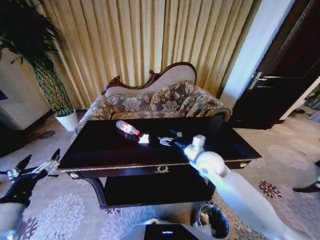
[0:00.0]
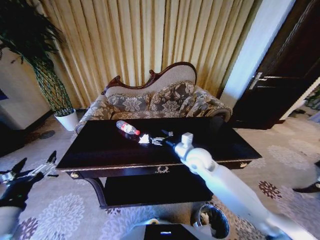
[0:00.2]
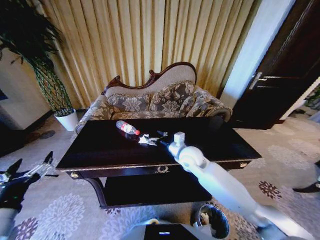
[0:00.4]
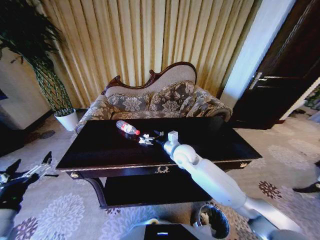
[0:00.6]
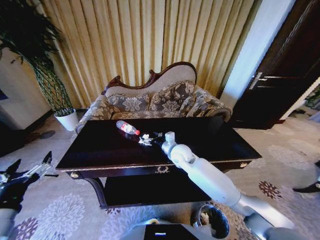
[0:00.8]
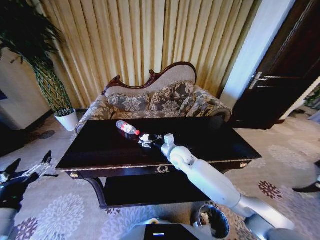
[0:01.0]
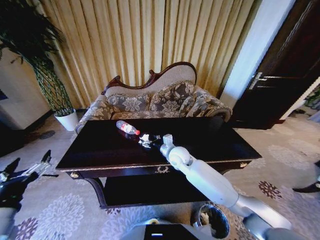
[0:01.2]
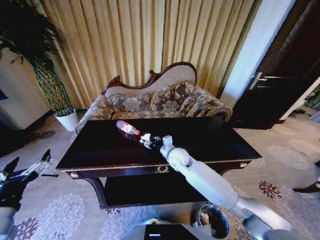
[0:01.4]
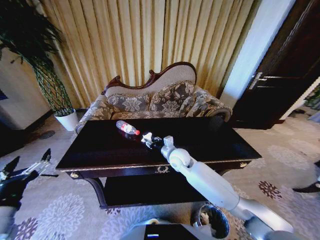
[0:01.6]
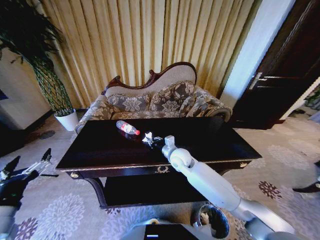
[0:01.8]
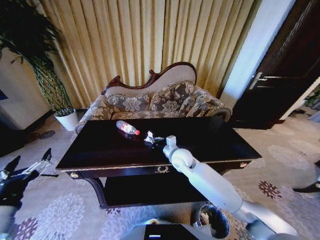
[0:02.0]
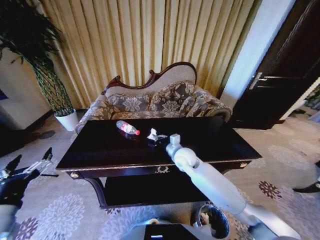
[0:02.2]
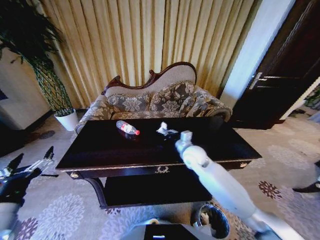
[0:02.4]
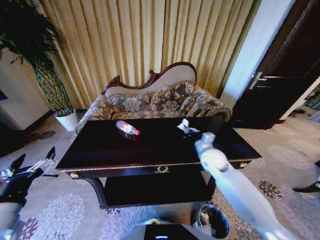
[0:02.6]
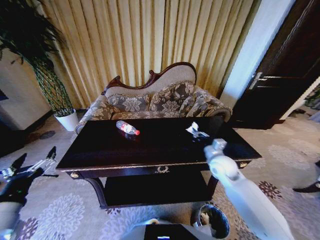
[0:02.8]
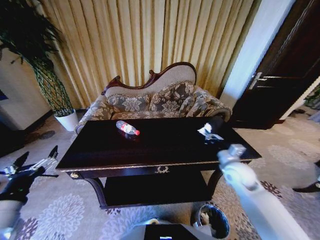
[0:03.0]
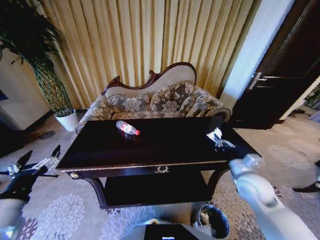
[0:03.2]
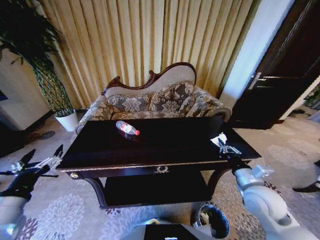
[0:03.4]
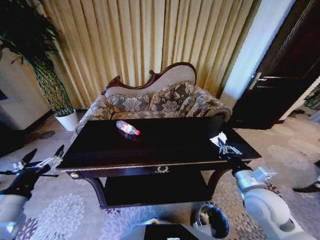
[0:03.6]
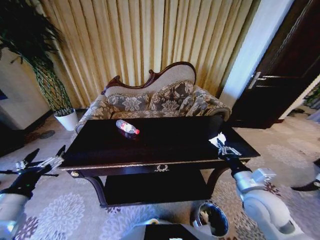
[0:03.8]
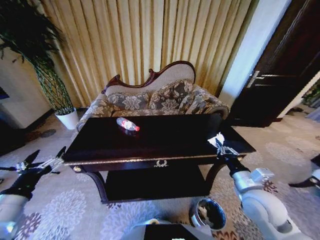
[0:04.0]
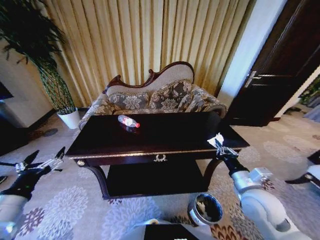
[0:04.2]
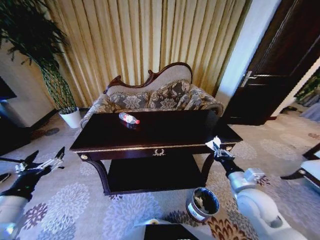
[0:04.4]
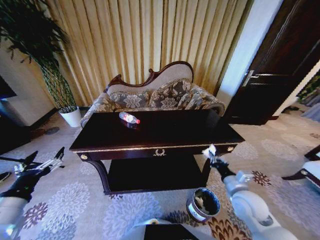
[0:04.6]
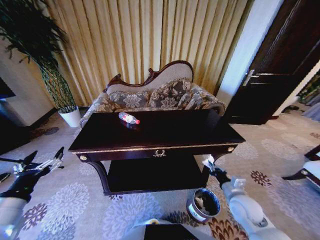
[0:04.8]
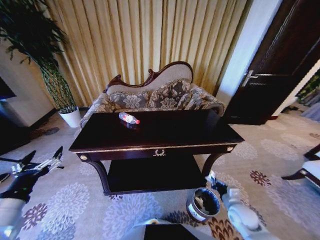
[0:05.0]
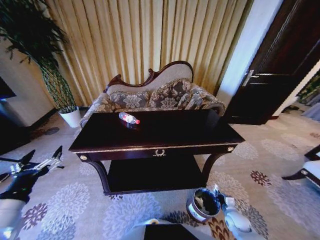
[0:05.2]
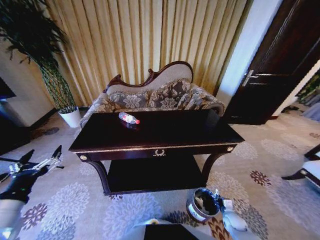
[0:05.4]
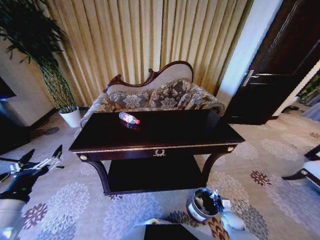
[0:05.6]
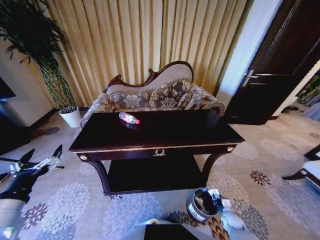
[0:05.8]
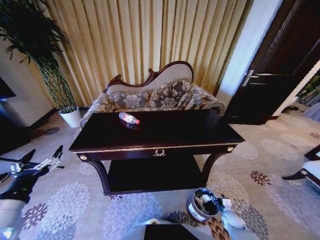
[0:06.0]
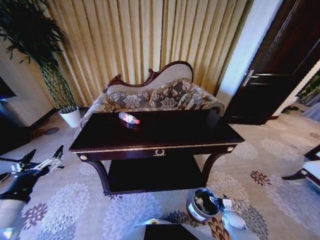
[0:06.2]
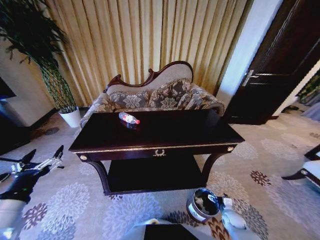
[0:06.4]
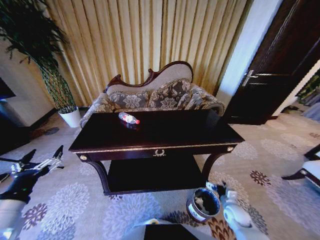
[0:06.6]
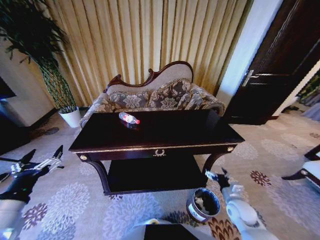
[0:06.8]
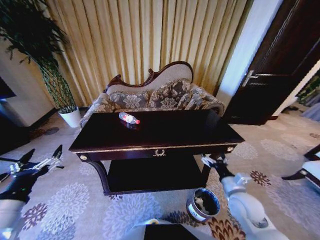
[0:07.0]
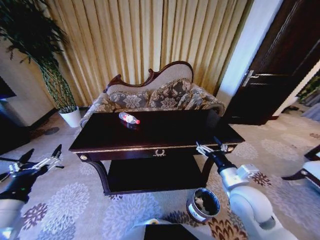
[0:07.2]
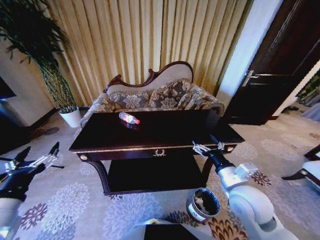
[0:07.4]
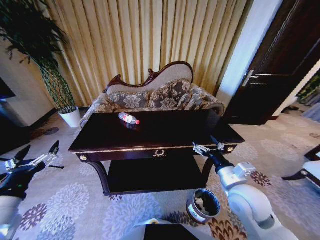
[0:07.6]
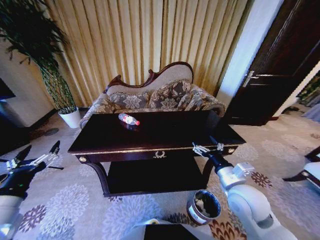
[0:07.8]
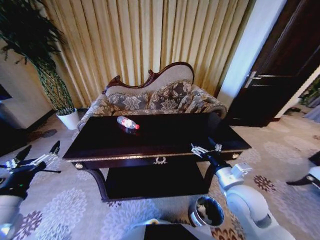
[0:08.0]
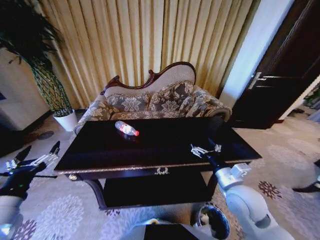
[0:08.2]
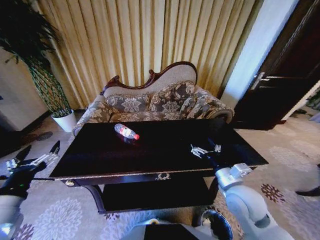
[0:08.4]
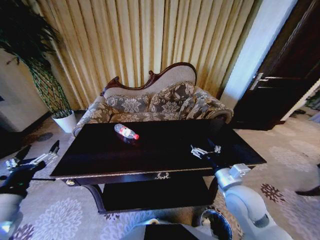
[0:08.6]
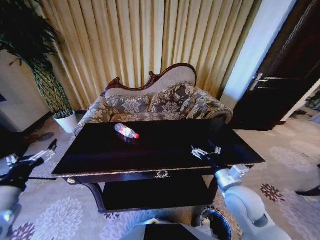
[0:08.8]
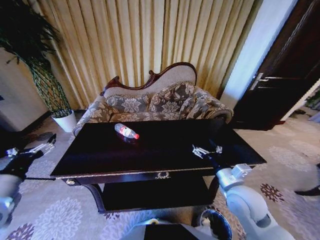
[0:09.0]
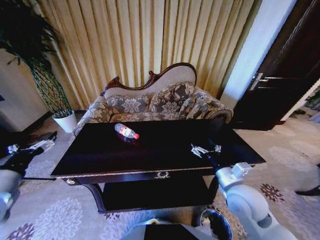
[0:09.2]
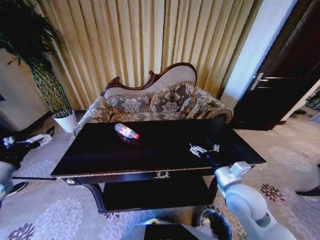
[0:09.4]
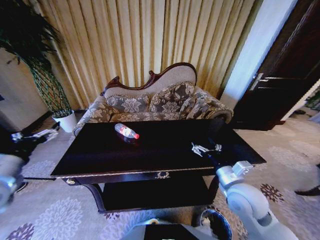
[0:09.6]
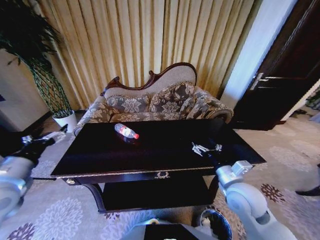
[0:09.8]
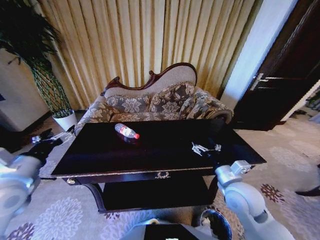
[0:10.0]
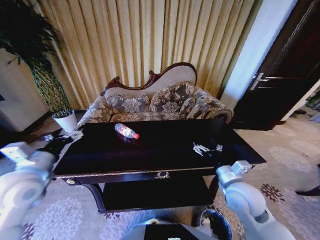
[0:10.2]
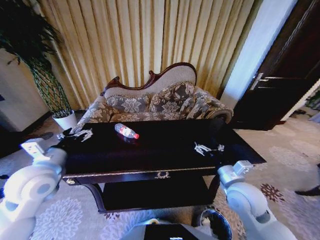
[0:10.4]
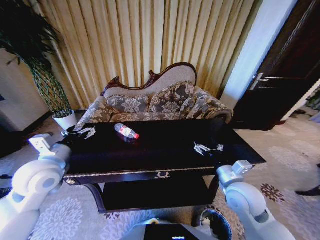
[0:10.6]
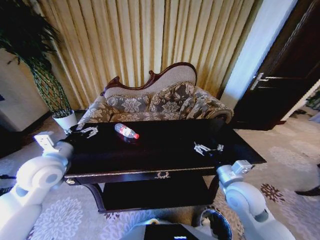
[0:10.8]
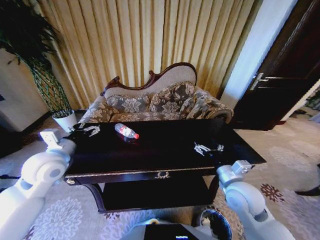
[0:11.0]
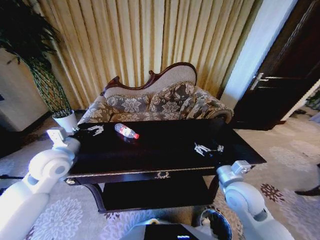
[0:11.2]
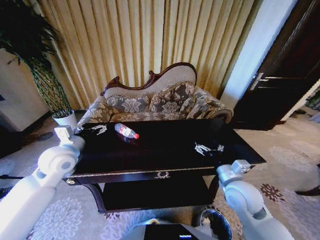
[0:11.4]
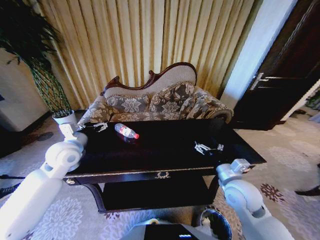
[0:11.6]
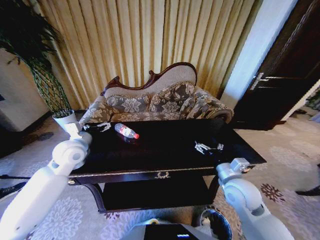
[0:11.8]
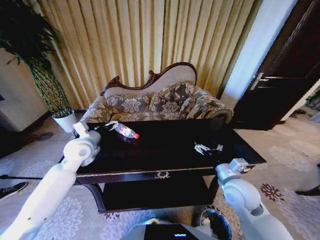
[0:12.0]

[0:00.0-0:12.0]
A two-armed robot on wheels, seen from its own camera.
Task of the whole recording: Move to the front of the table and place the trash on the table into the trash bin.
0:00.0 to 0:01.6: The right gripper travels to the left, forward and downward by some 15 cm, and closes.
0:01.6 to 0:03.0: The right gripper travels to the right and backward by some 25 cm, and closes its fingers.
0:03.0 to 0:04.4: The right gripper travels backward by about 10 cm.
0:04.4 to 0:06.0: The right gripper is displaced downward by approximately 35 cm, and opens up.
0:06.0 to 0:07.6: The right gripper moves upward, about 35 cm, and opens up.
0:07.6 to 0:09.0: The left gripper is displaced forward by some 5 cm.
0:09.0 to 0:10.4: The left gripper travels to the right and forward by some 15 cm.
0:10.4 to 0:12.0: The left gripper moves forward, about 15 cm.

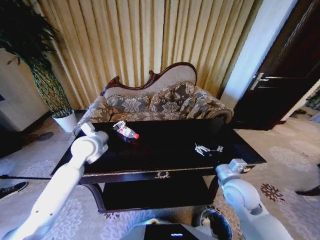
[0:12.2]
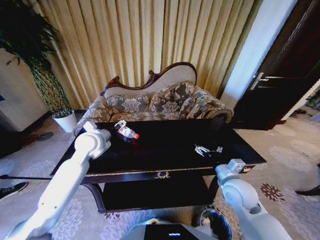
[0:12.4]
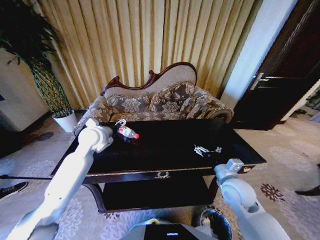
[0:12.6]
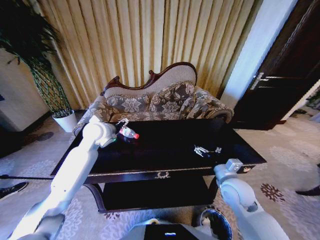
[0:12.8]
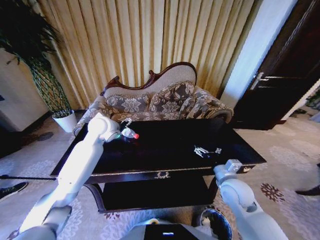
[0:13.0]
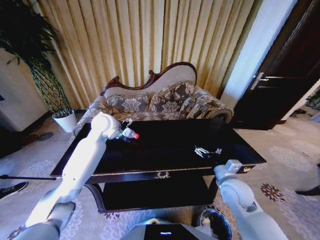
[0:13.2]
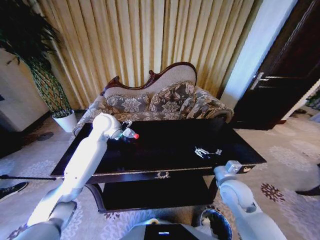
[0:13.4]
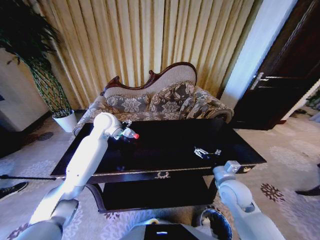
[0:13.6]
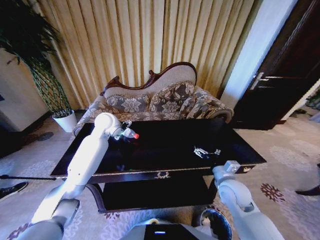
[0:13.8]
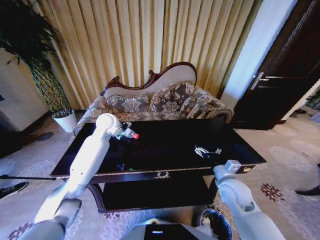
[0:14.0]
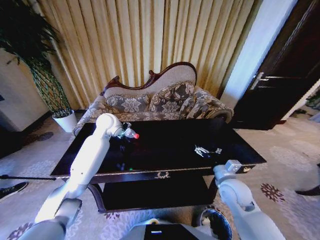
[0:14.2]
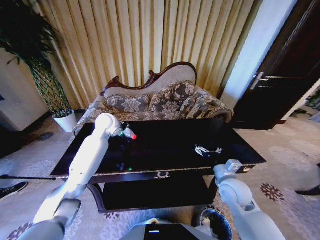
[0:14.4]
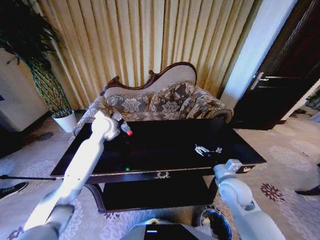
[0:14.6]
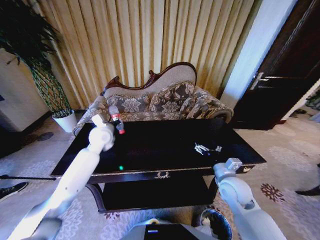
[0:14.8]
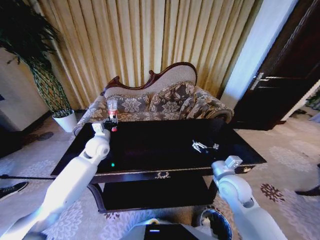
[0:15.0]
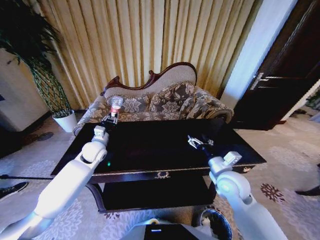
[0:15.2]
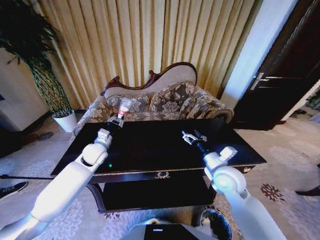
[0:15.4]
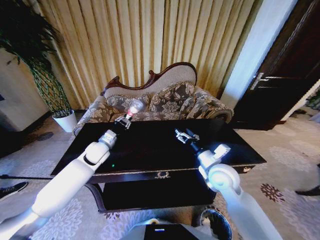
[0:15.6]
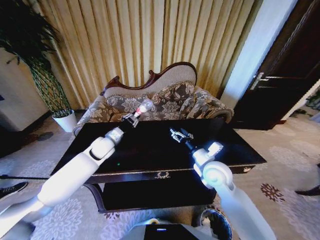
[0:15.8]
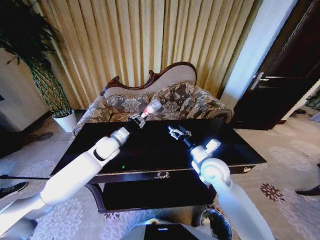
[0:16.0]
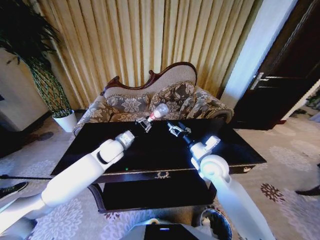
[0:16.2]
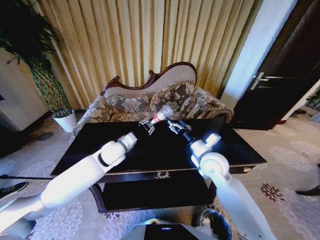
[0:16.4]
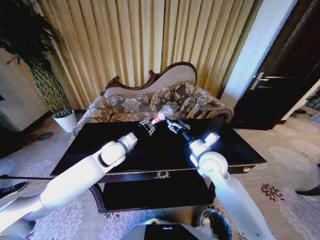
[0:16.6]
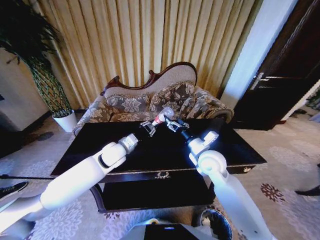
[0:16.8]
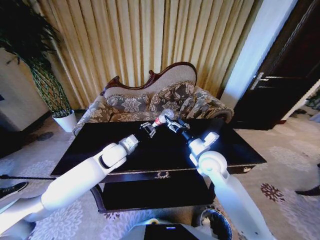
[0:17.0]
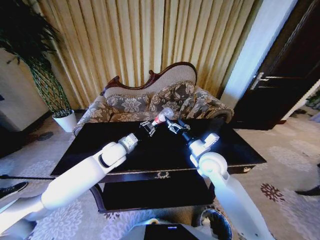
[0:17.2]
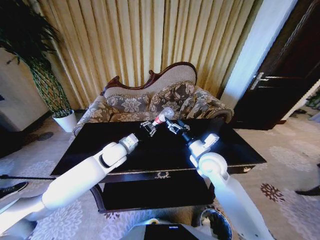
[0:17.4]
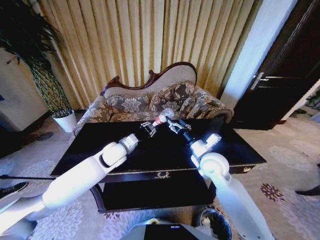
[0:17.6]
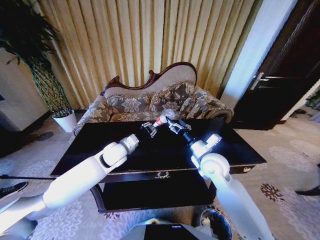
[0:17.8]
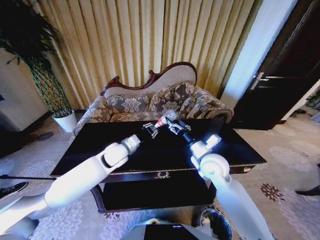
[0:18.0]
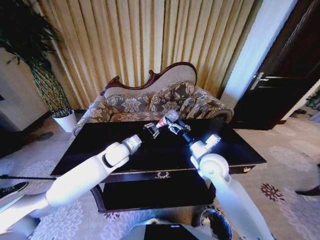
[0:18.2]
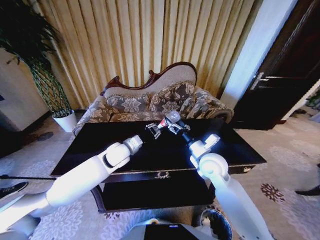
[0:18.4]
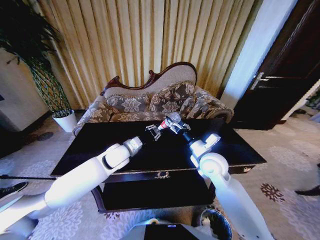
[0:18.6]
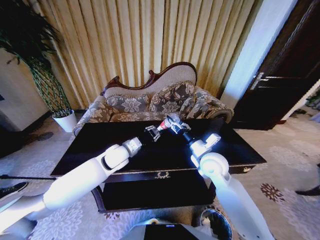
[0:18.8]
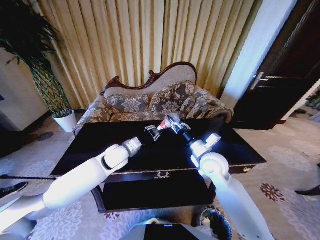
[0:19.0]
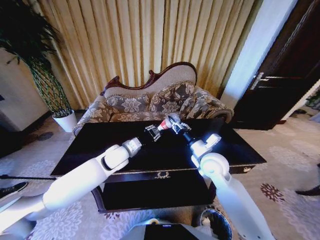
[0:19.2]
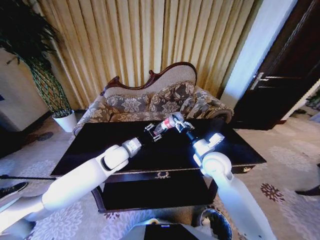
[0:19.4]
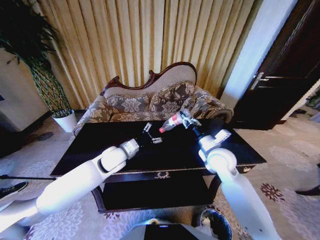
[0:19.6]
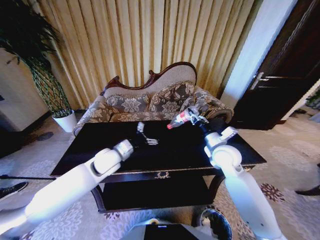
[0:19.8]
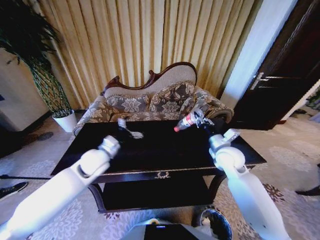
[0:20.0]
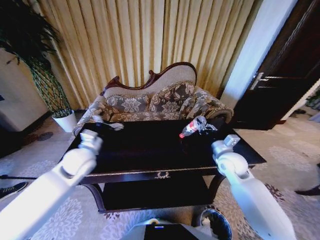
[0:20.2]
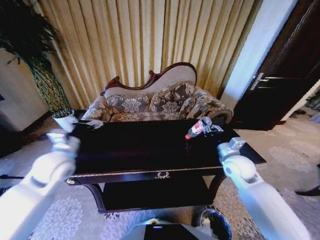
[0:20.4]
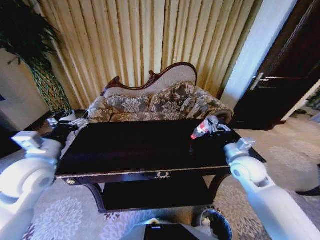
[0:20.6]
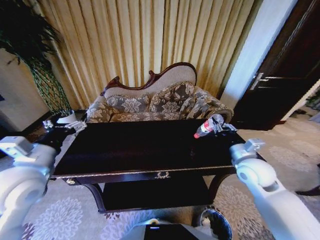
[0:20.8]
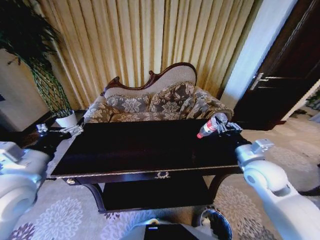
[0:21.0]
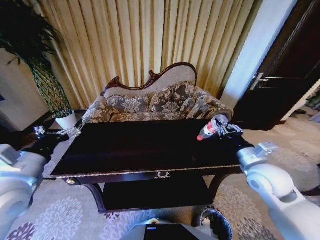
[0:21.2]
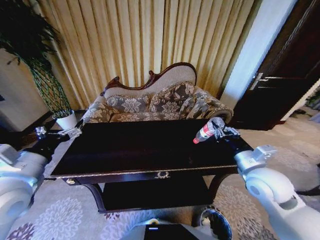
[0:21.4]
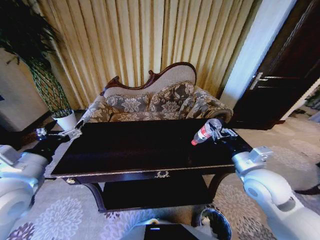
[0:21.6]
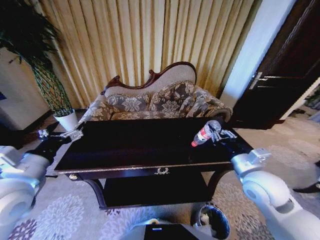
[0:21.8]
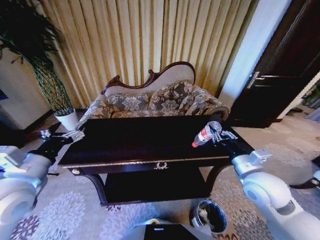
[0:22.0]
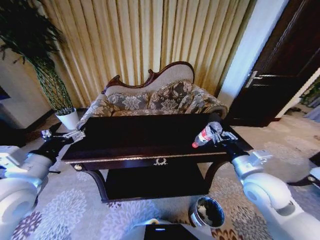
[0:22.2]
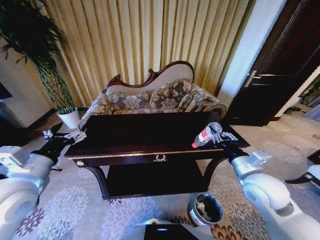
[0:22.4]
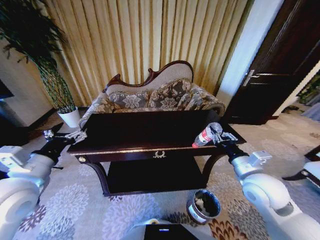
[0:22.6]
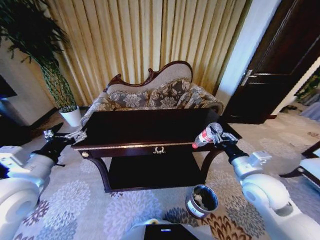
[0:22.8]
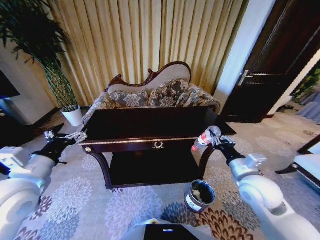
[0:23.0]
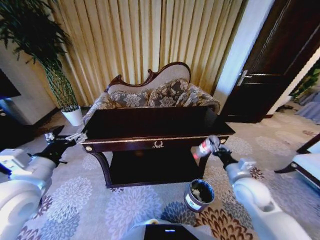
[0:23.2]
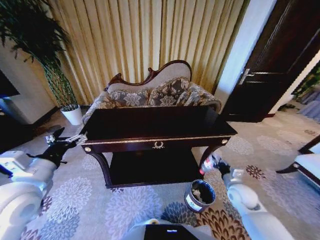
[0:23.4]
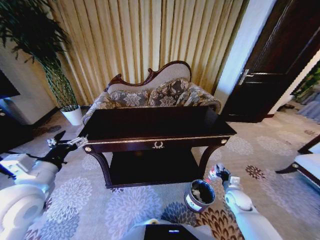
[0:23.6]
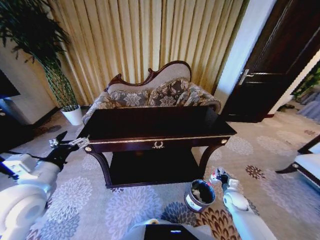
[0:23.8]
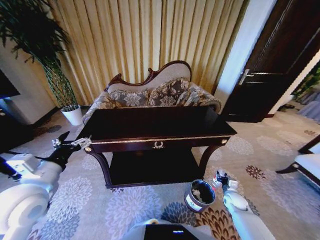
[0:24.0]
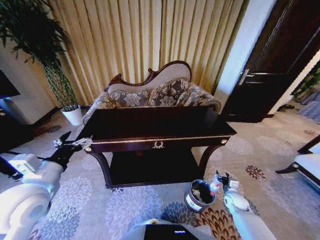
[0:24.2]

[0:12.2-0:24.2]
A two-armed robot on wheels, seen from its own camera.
Task of the whole recording: Move to the front of the table and place the trash on the table into the trash bin.
0:12.2 to 0:13.8: The left gripper moves forward and to the right, some 15 cm.
0:13.8 to 0:15.2: The right gripper shifts by approximately 5 cm; the left gripper shifts about 15 cm downward, to the left and backward, and closes.
0:15.2 to 0:16.6: The left gripper is displaced to the right by some 10 cm. The right gripper goes roughly 10 cm forward and to the left.
0:16.6 to 0:18.2: The grippers make only small movements.
0:18.2 to 0:19.8: The left gripper opens up, while the right gripper is displaced to the right by roughly 5 cm, and closes.
0:19.8 to 0:21.2: The left gripper moves to the left, backward and upward, approximately 25 cm. Meanwhile the right gripper goes roughly 10 cm backward and to the right.
0:22.6 to 0:24.2: The right gripper shifts about 30 cm downward, and opens.
